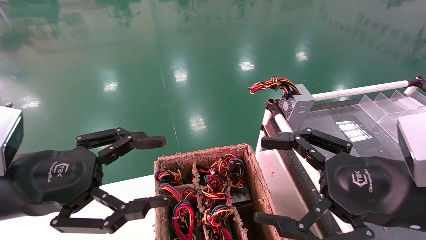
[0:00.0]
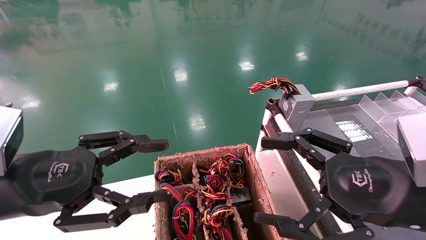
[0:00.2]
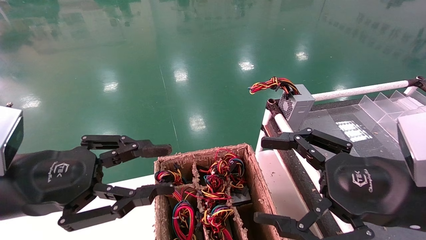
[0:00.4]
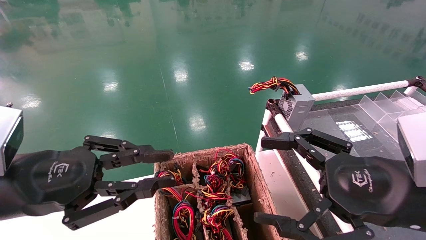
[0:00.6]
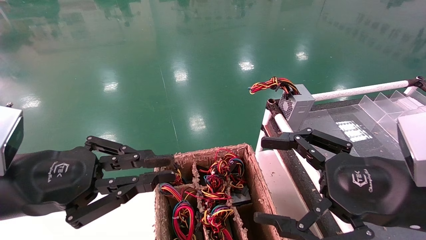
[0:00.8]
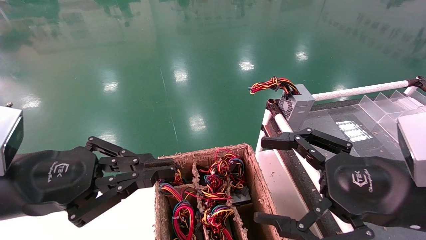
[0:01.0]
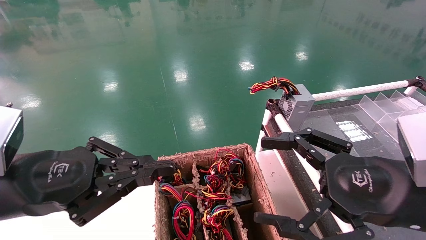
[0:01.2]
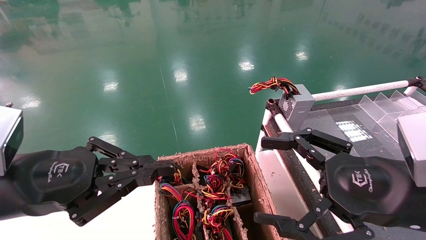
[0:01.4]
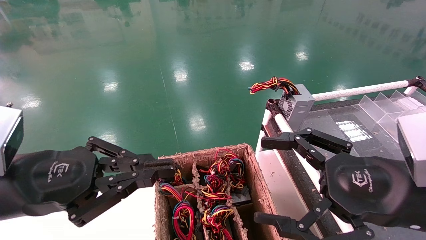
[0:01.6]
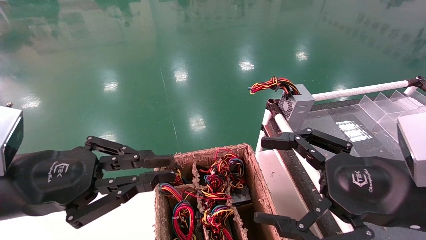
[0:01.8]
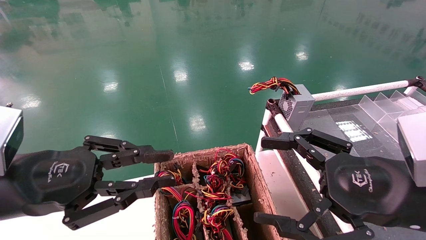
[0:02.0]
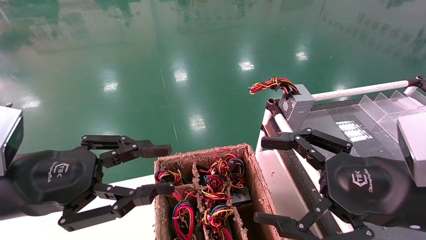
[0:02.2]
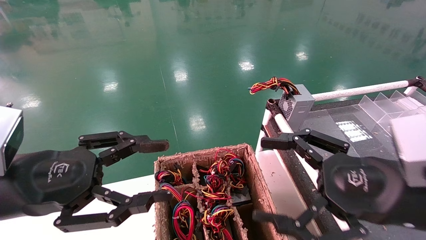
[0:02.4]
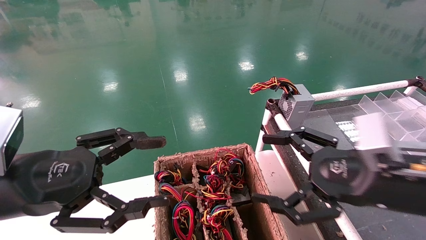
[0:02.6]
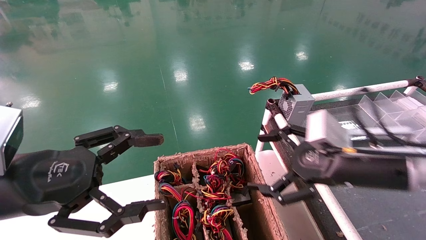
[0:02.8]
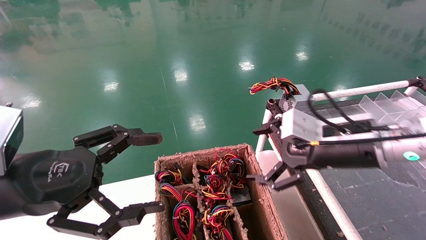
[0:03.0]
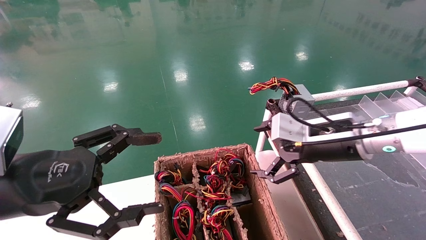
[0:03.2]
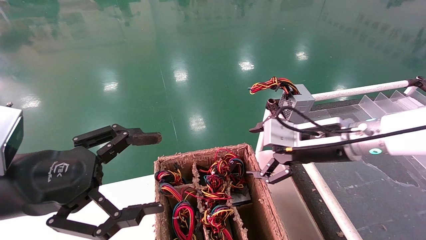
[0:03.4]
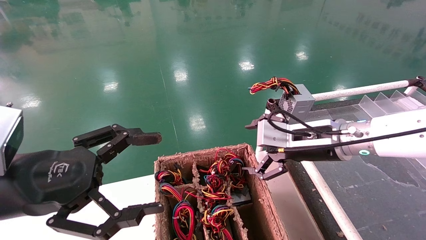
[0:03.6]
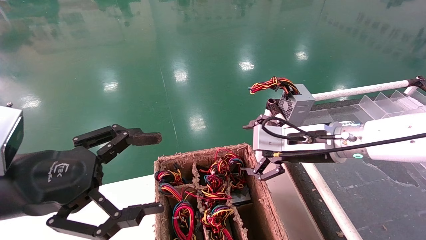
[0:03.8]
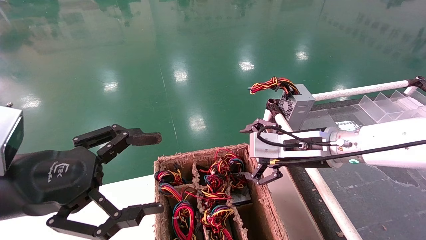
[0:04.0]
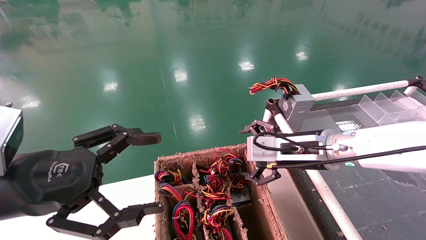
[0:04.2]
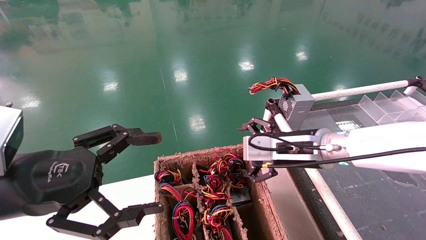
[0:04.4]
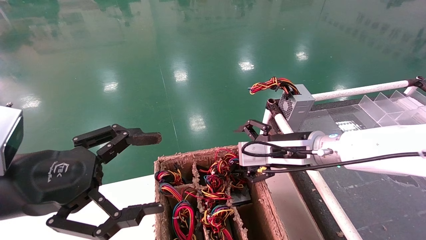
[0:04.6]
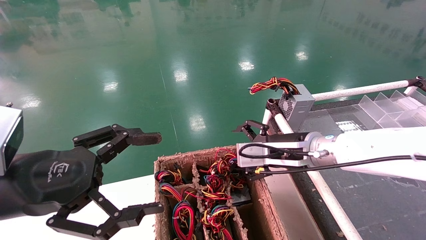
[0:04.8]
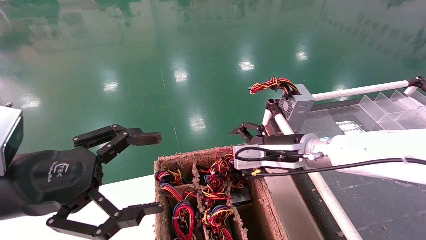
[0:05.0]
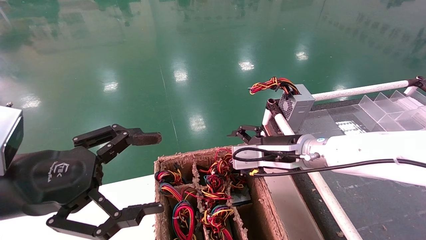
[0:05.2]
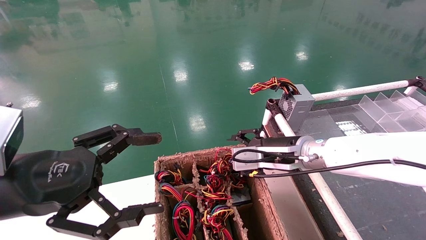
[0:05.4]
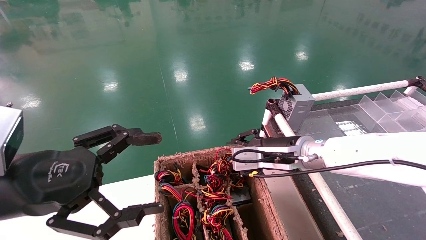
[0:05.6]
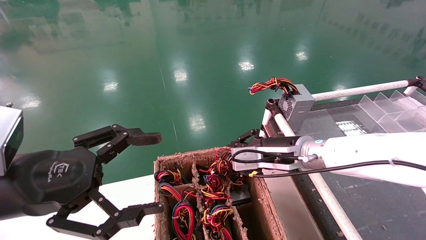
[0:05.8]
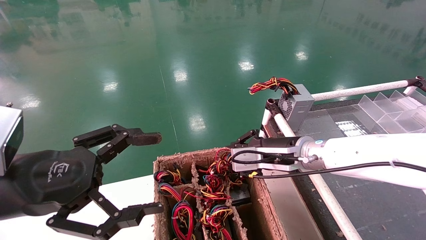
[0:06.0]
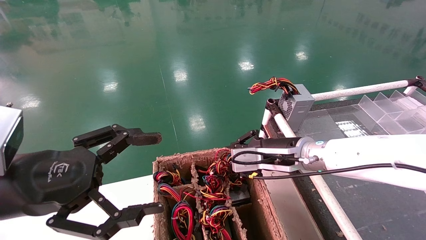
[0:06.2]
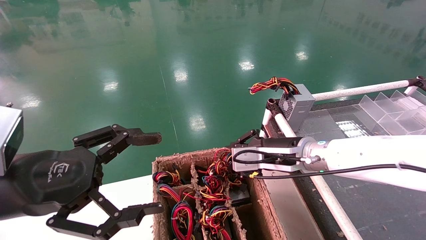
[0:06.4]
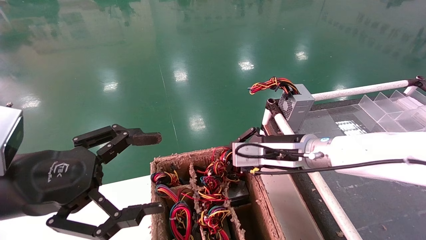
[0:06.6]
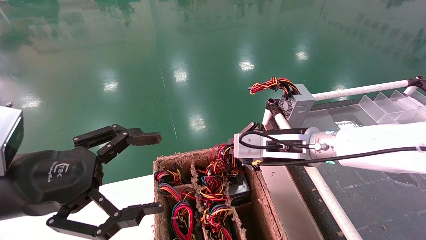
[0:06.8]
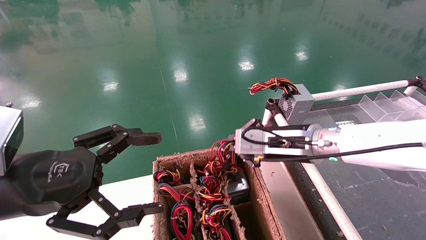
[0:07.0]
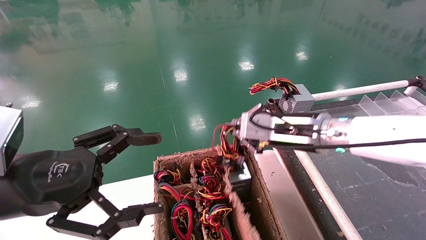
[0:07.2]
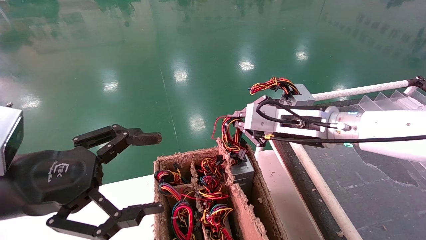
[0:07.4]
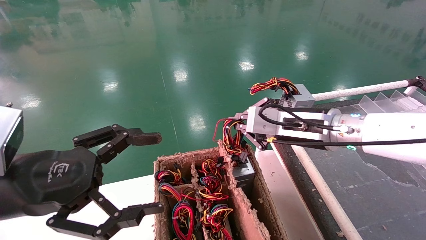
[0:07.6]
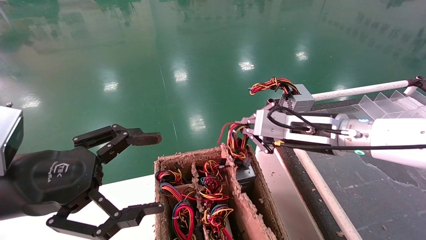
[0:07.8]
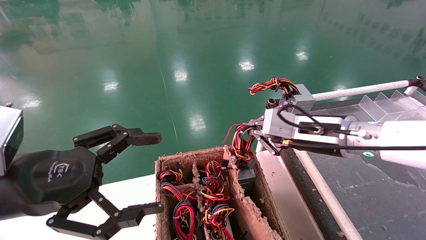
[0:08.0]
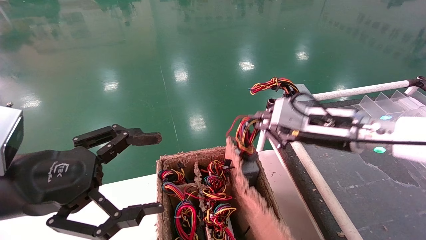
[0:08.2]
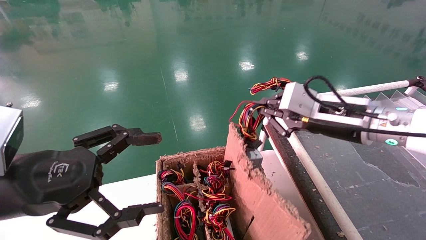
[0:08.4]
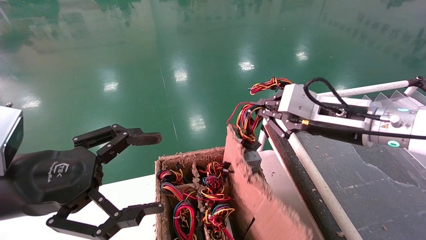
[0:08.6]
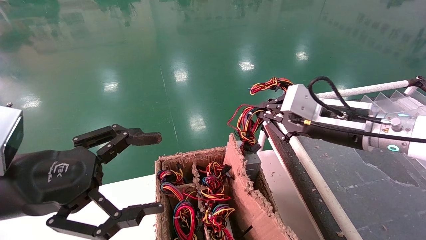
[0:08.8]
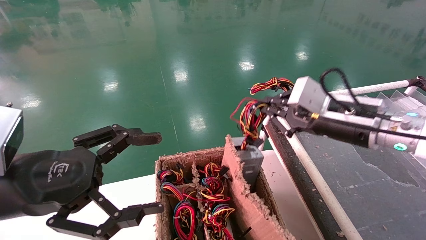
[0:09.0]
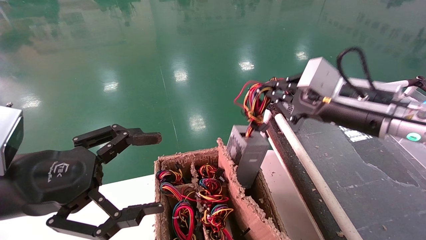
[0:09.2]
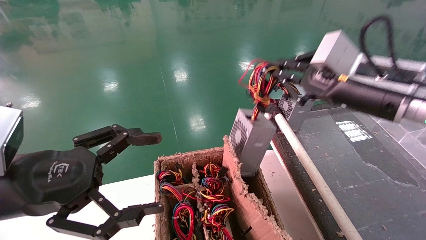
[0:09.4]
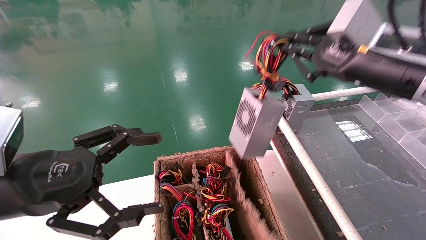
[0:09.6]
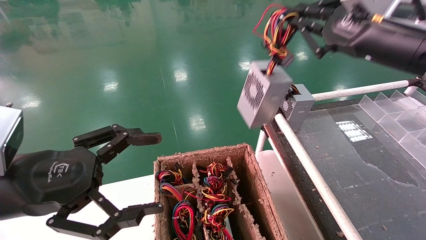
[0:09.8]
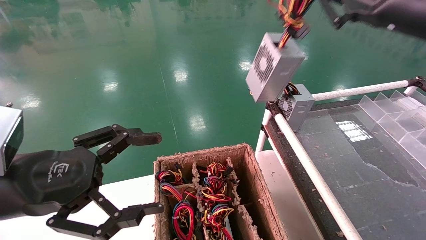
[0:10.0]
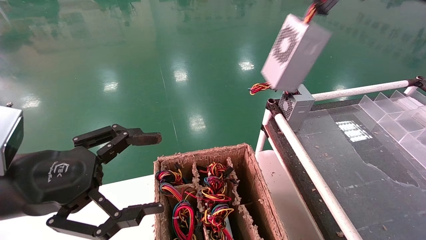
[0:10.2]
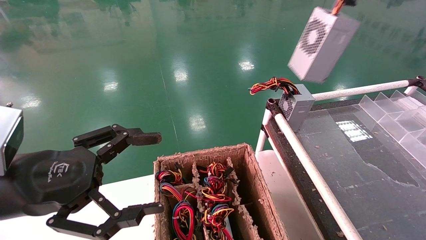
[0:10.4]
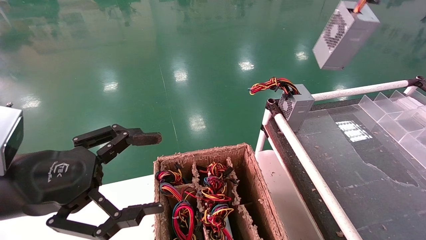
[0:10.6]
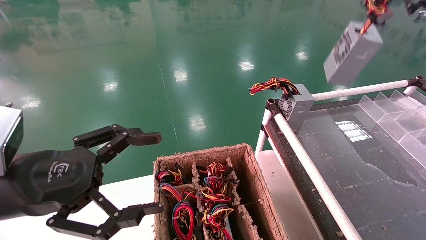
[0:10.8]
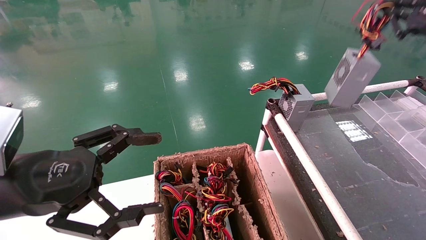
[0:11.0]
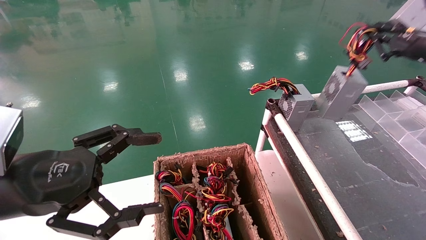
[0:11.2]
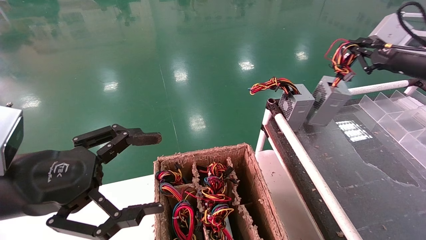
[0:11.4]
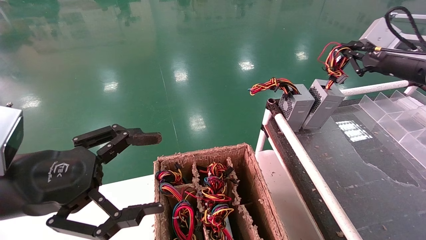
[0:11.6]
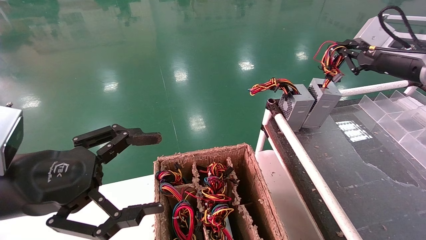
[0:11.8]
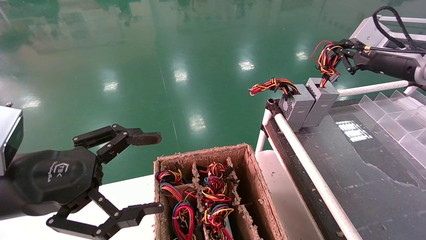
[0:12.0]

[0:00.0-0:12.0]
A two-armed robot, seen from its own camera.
Step, 0:01.6 to 0:06.4: Grab and lift the power supply from the large box.
0:00.0 to 0:01.6: The left gripper closes its fingers.
0:01.6 to 0:03.0: The right gripper moves forward, roughly 10 cm. Meanwhile the left gripper opens up.
0:03.0 to 0:04.4: The right gripper heads to the left and forward, covering approximately 5 cm.
0:04.4 to 0:06.0: The right gripper closes up.
0:06.0 to 0:07.6: The right gripper moves upward, about 5 cm.
0:07.6 to 0:09.0: The right gripper heads to the right, covering some 5 cm.
0:09.0 to 0:10.4: The right gripper travels upward and to the right by approximately 20 cm.
0:10.4 to 0:12.0: The right gripper heads forward and downward, covering approximately 15 cm.

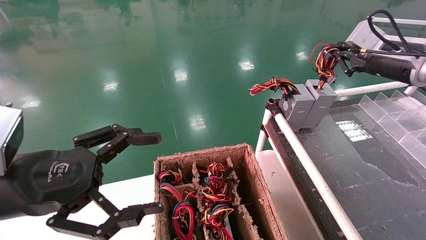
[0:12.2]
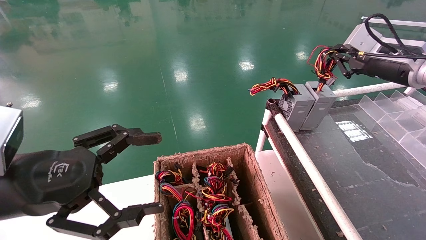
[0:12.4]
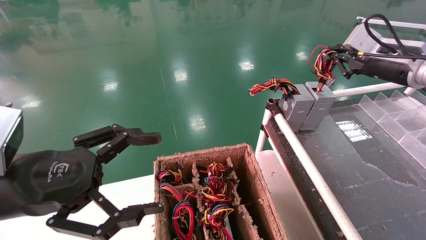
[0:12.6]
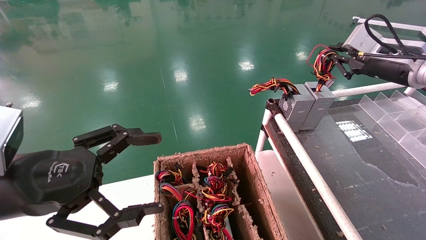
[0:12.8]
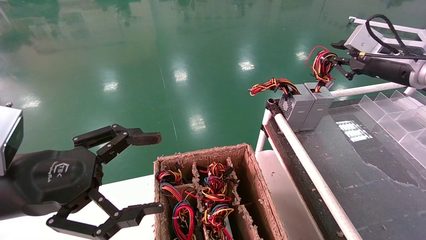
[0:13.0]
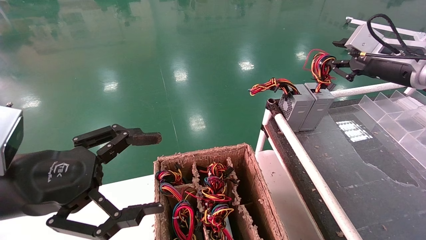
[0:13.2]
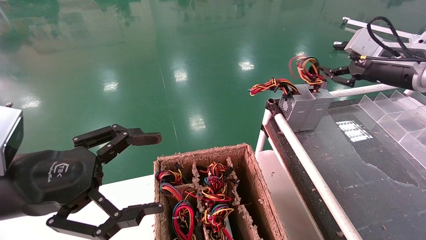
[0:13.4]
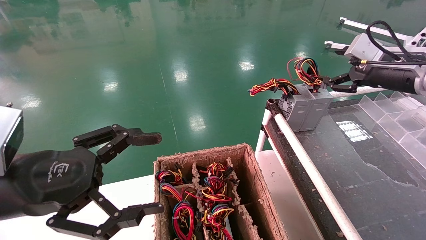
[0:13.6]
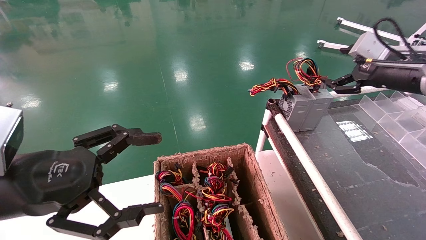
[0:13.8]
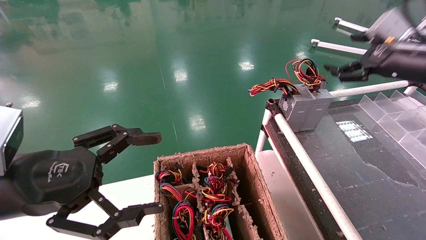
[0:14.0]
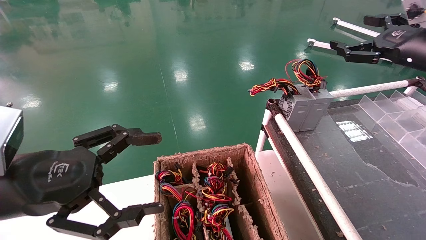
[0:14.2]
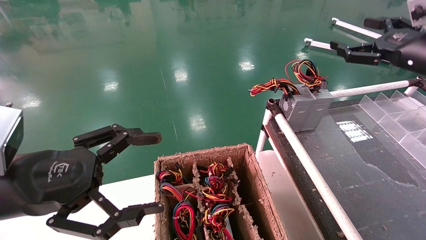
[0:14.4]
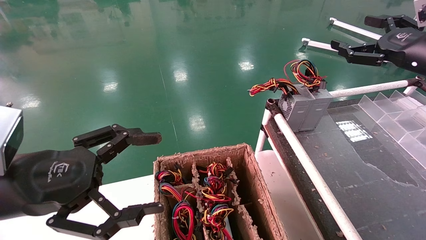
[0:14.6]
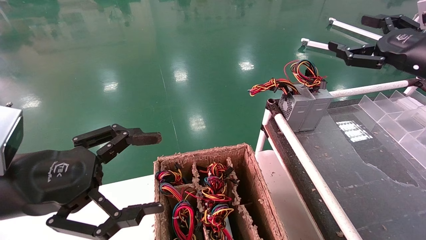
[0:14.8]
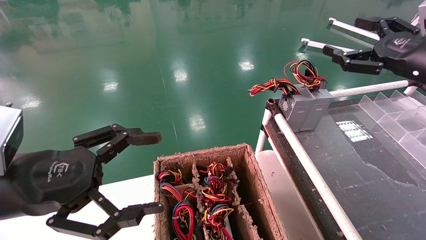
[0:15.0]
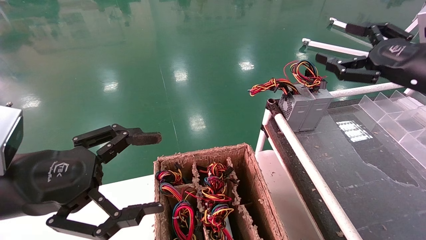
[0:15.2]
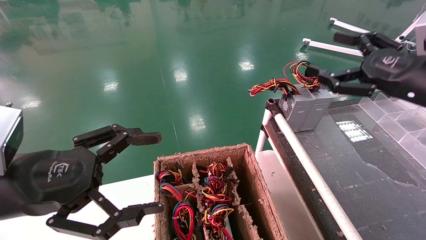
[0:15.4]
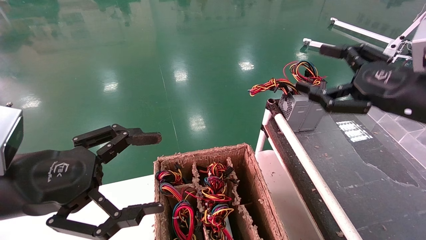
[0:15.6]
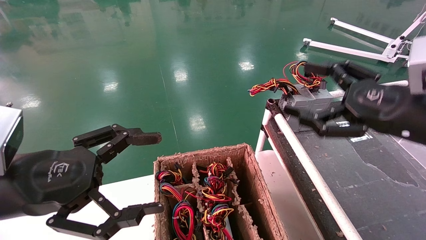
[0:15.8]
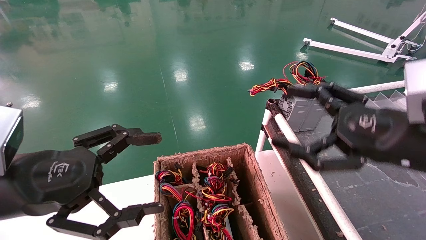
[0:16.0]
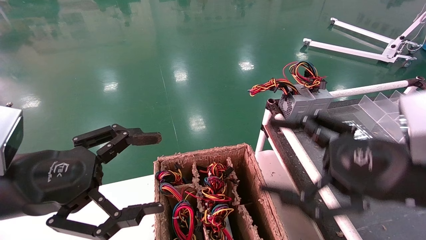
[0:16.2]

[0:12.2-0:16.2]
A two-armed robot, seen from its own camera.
0:12.2 to 0:13.6: The right gripper opens up.
0:13.6 to 0:14.8: The right gripper heads backward, covering some 5 cm, and opens up.
0:14.8 to 0:16.2: The right gripper is displaced backward, to the left and downward by approximately 20 cm.

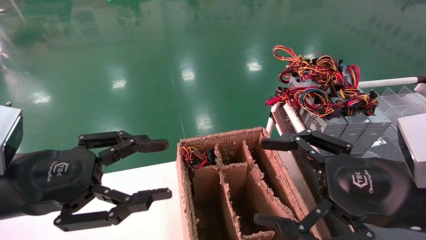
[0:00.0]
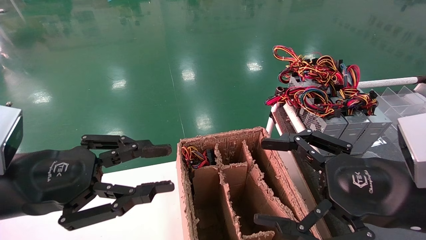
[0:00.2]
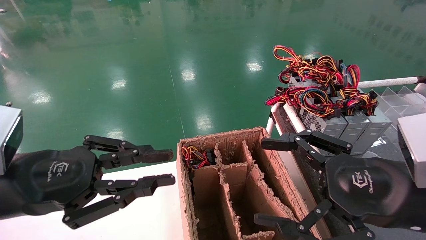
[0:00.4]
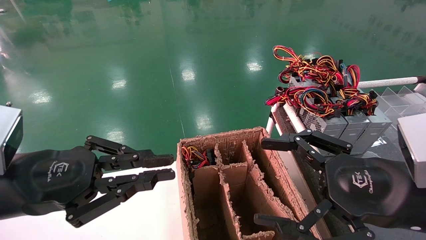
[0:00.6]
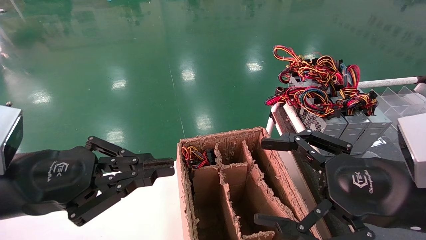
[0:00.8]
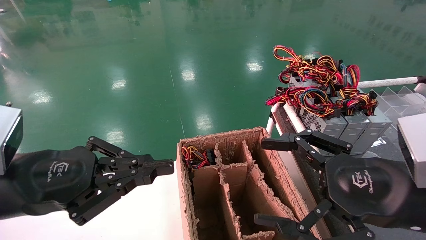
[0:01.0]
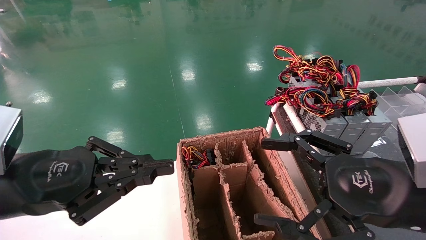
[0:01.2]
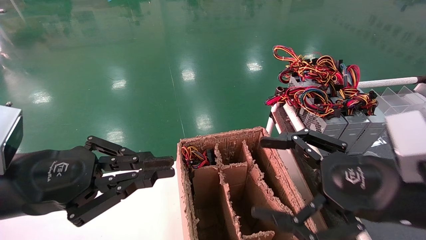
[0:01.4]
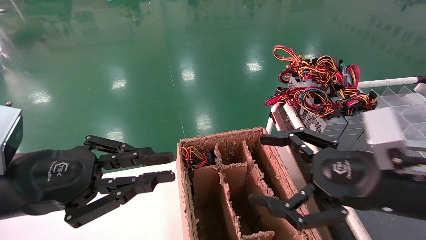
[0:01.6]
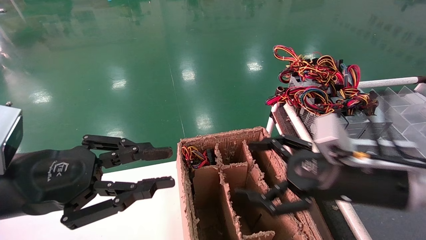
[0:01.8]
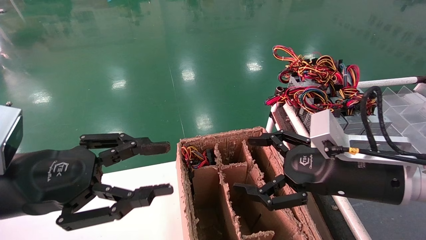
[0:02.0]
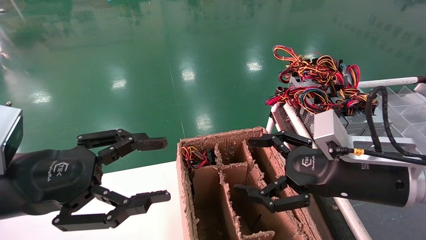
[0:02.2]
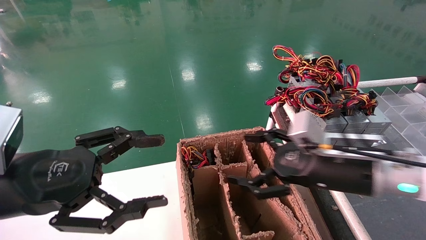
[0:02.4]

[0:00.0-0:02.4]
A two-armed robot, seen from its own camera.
0:00.0 to 0:01.2: The left gripper closes its fingers.
0:01.2 to 0:02.4: The right gripper is displaced forward and to the left by some 10 cm; the left gripper opens up.
